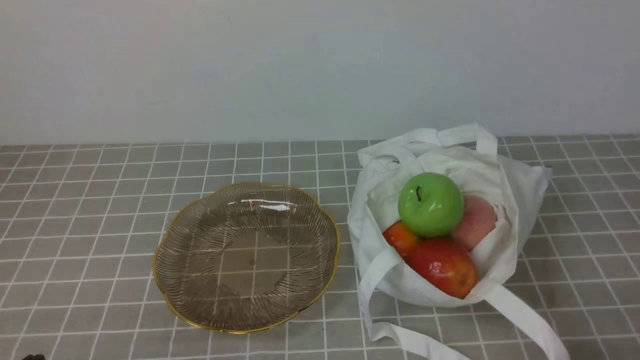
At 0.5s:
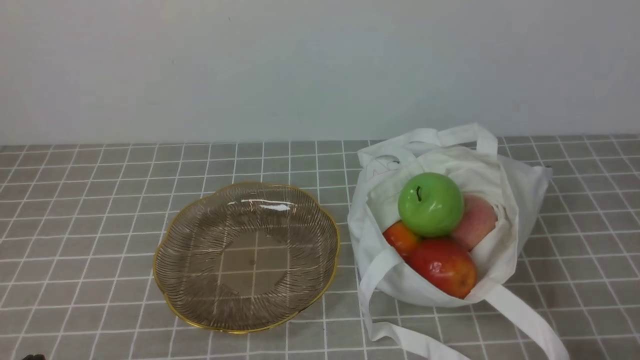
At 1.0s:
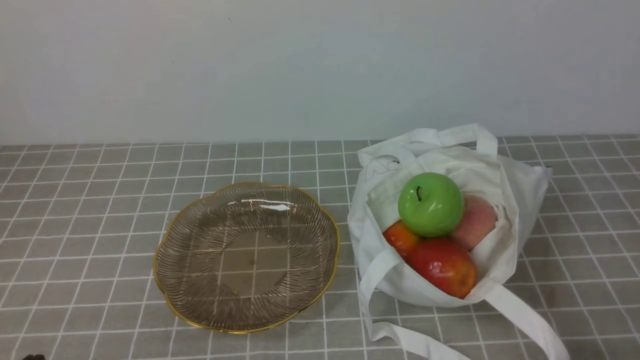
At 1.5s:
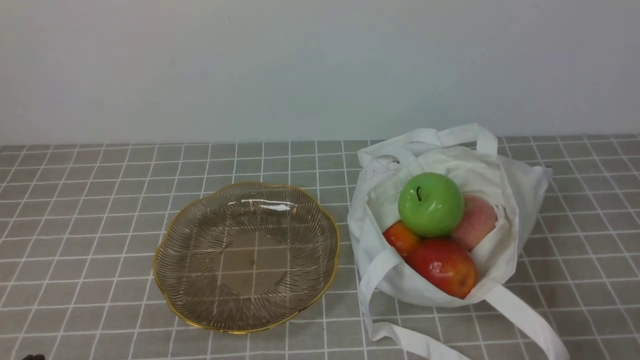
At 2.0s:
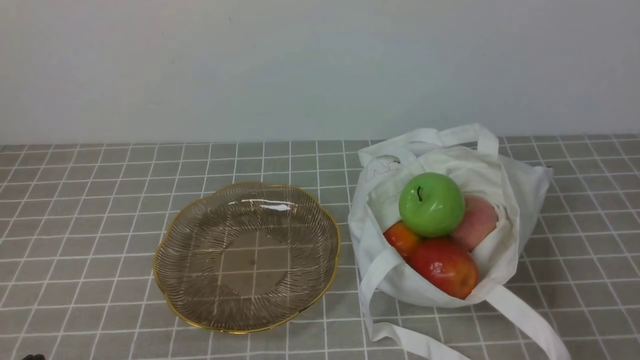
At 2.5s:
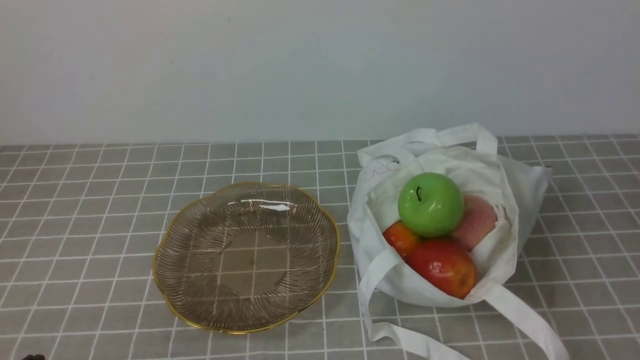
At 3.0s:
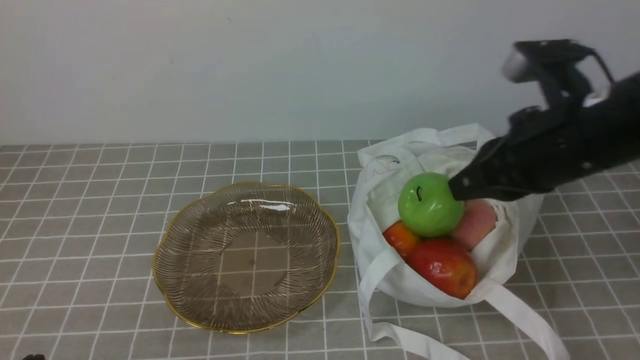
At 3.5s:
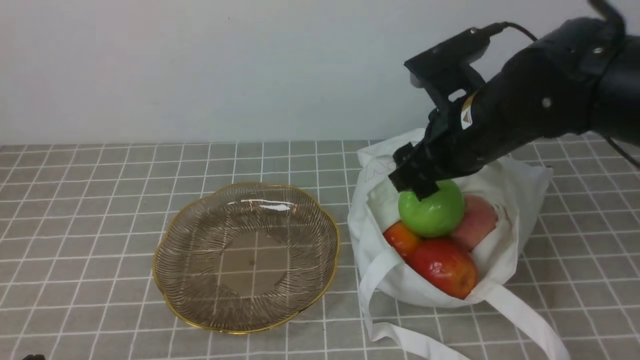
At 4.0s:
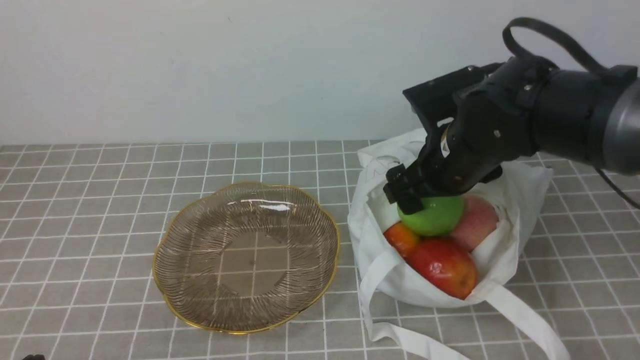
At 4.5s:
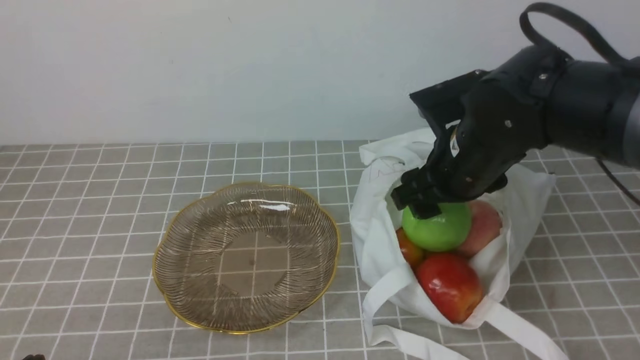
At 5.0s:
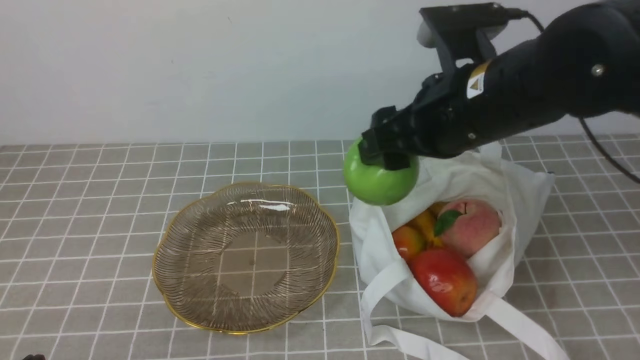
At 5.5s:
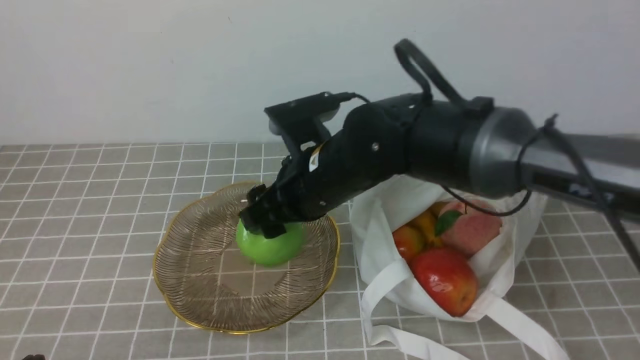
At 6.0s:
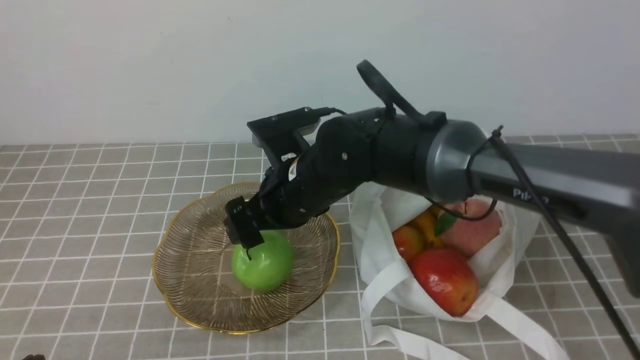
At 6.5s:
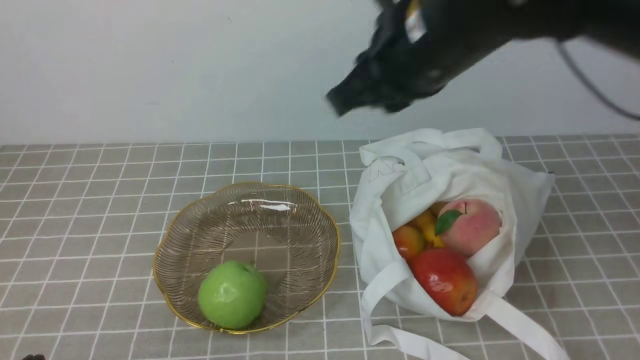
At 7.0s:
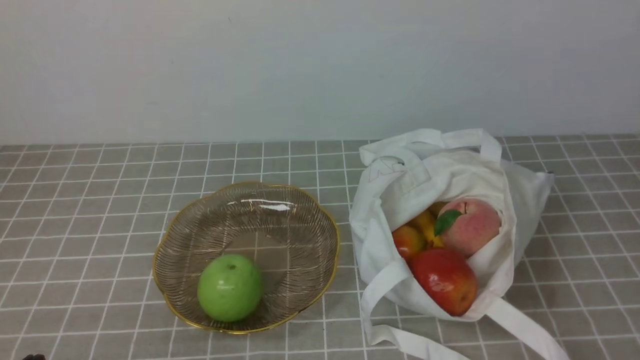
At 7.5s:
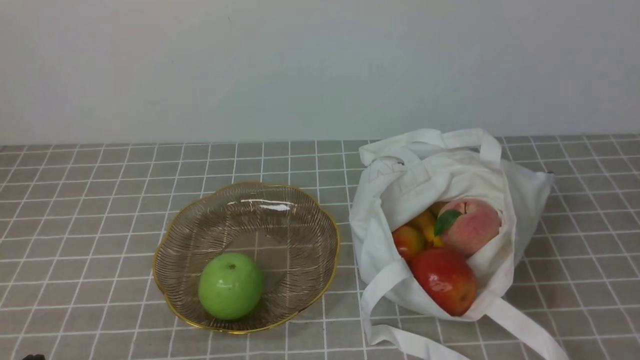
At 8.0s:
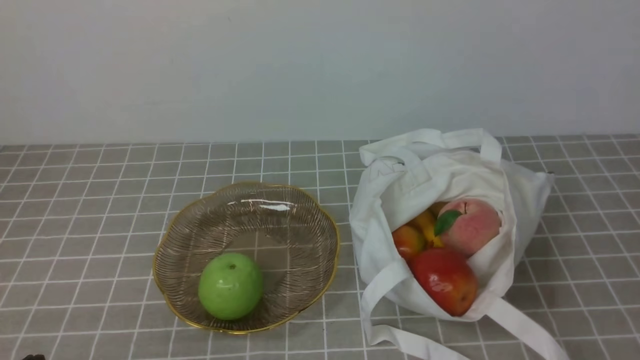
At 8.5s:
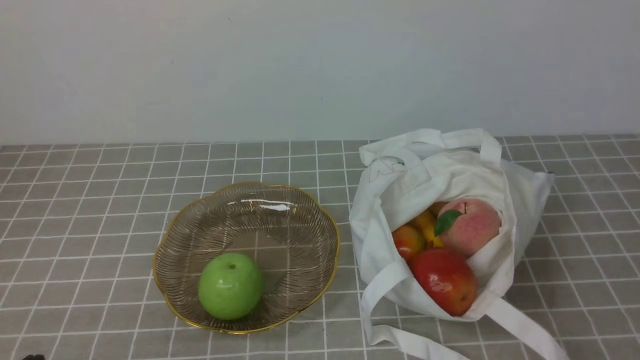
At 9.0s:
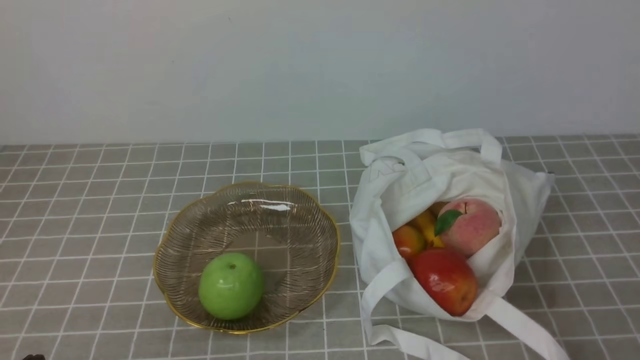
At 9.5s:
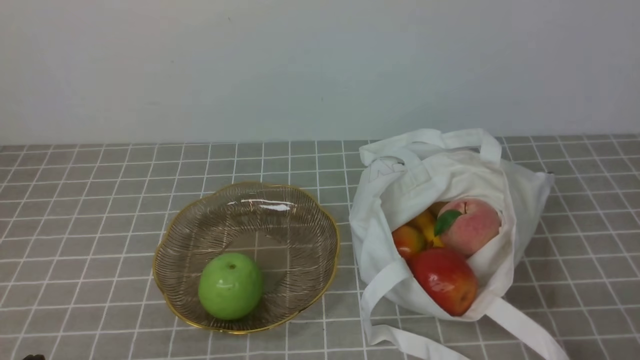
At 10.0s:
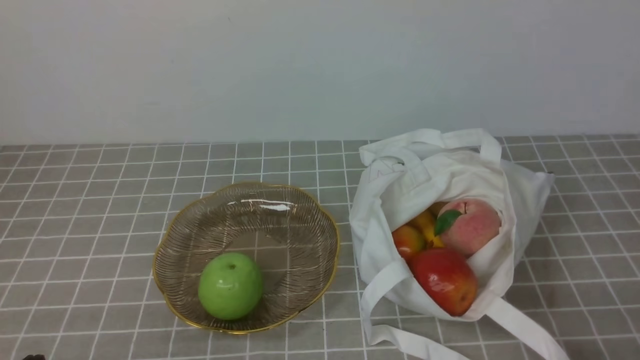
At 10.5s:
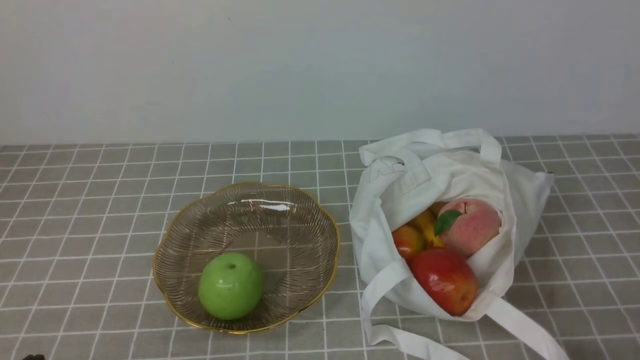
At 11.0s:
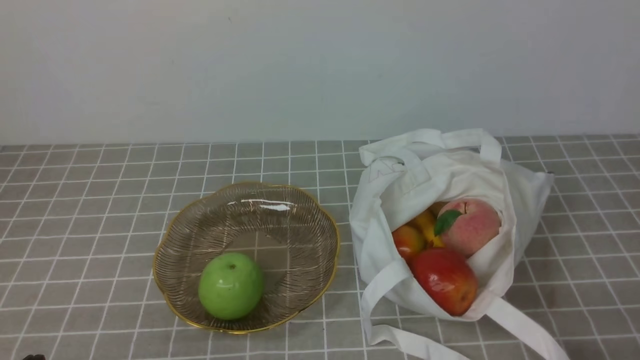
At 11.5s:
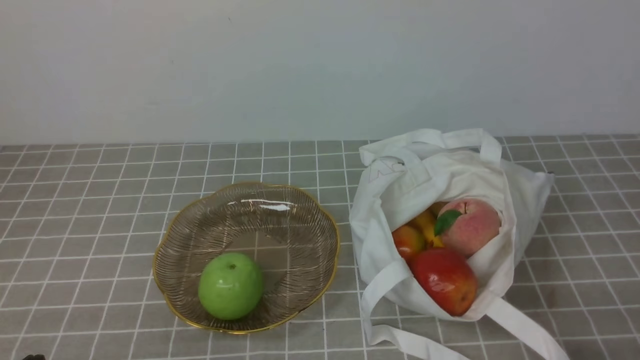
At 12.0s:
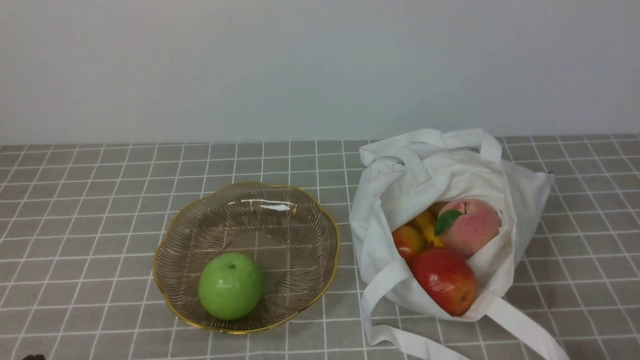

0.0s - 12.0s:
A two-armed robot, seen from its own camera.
Step, 0.0s - 4.0s: use the right arm to grab an apple from the bag.
Step, 4.5s - 5.5s: use the right arm to put the apple into the empty plate on the left.
2.0s - 4.0s: The right gripper moves forward and to the left, some 35 cm, and opens up.
4.0s - 6.0s: The right gripper is displaced to the left by some 15 cm.
6.0s - 8.0s: The right gripper moves backward and to the right, roughly 40 cm, and closes.
10.0s - 12.0s: The two grippers keep their place.

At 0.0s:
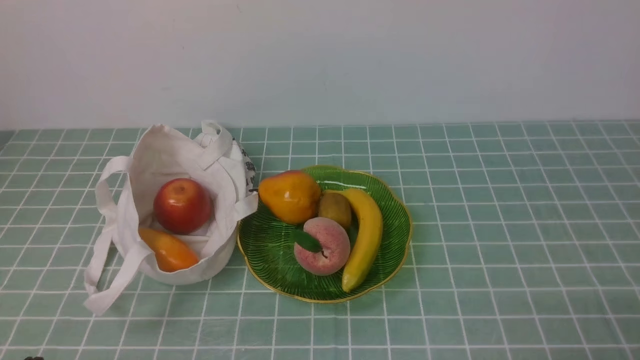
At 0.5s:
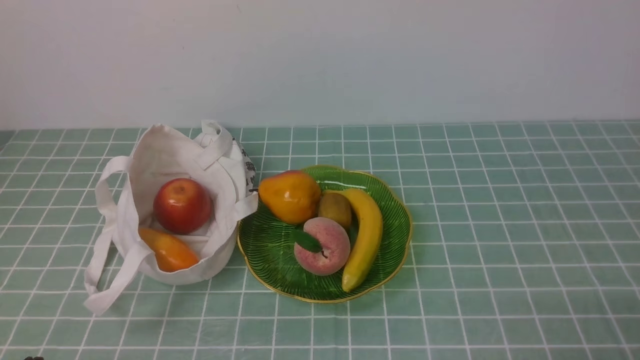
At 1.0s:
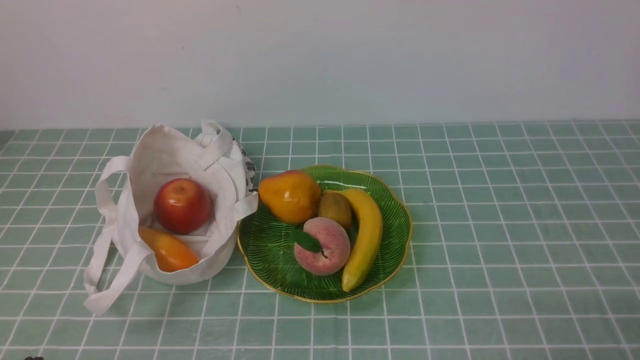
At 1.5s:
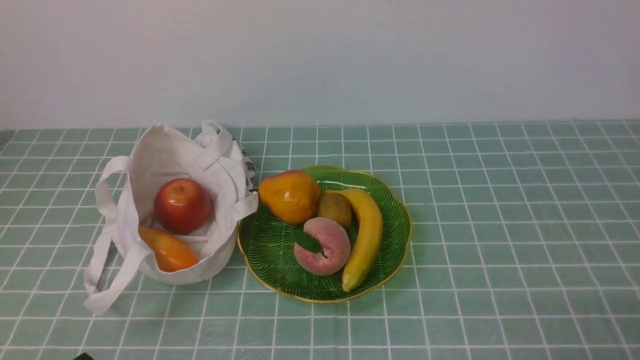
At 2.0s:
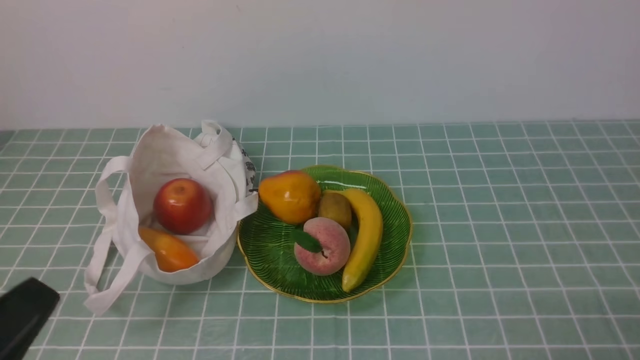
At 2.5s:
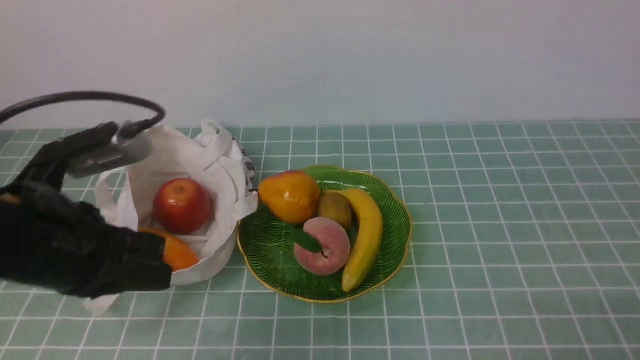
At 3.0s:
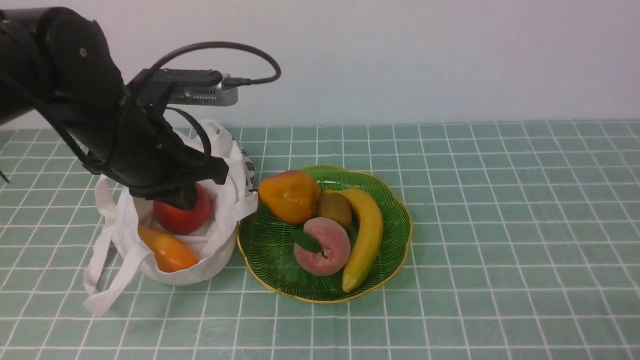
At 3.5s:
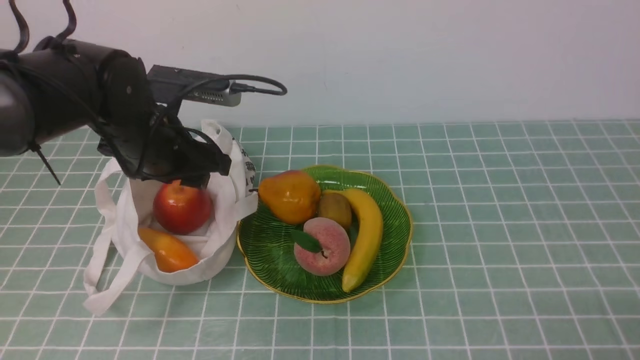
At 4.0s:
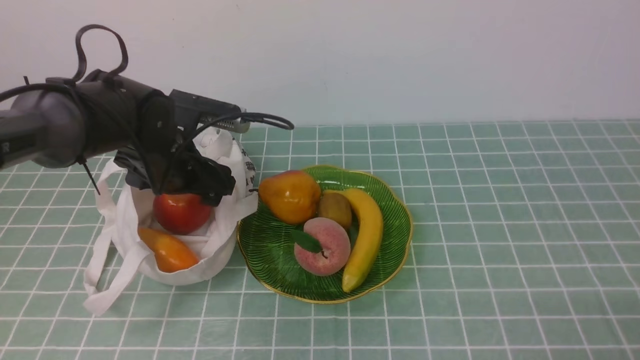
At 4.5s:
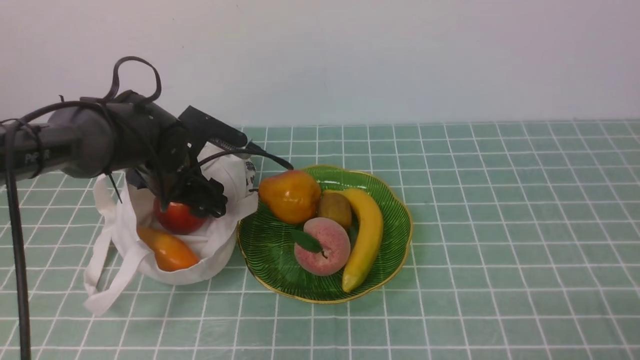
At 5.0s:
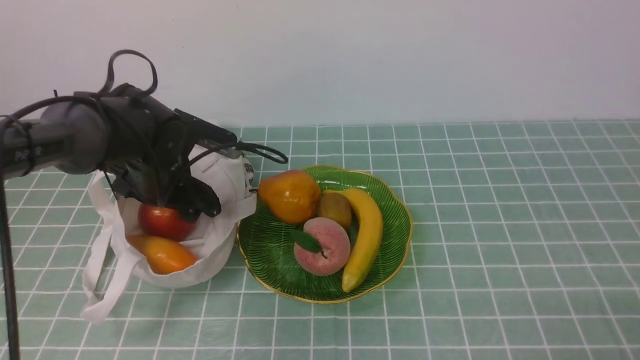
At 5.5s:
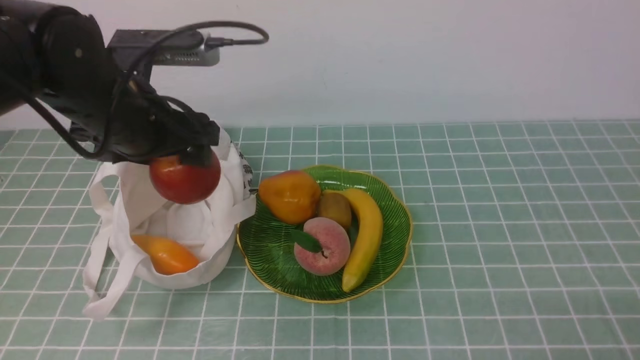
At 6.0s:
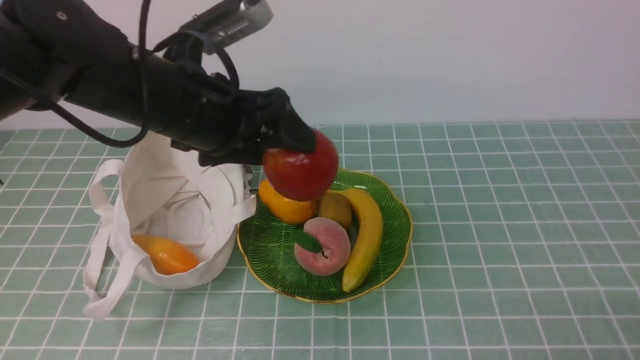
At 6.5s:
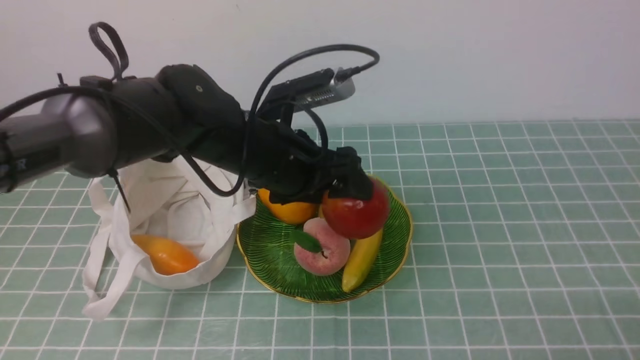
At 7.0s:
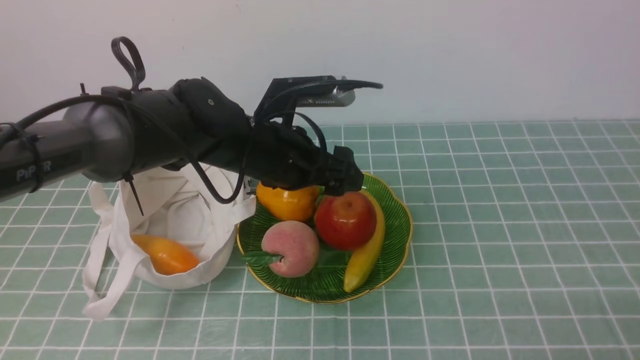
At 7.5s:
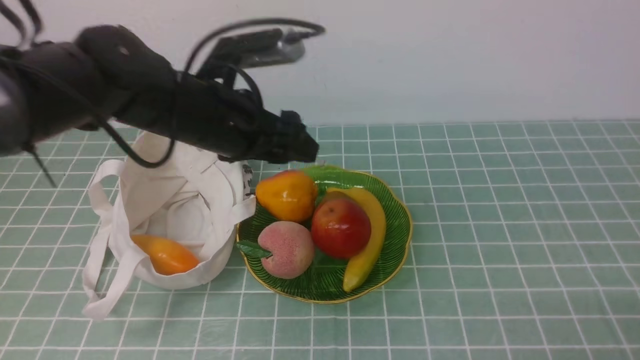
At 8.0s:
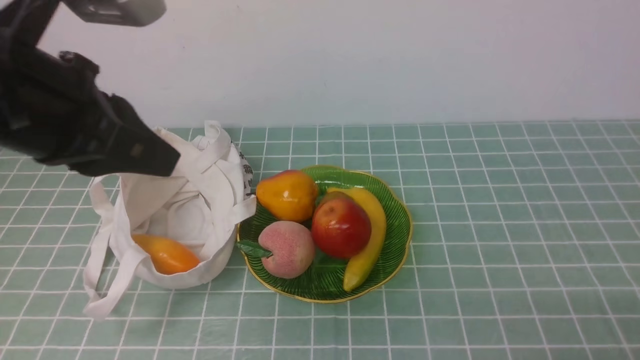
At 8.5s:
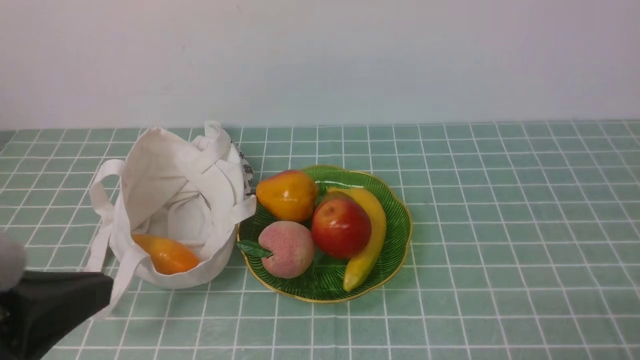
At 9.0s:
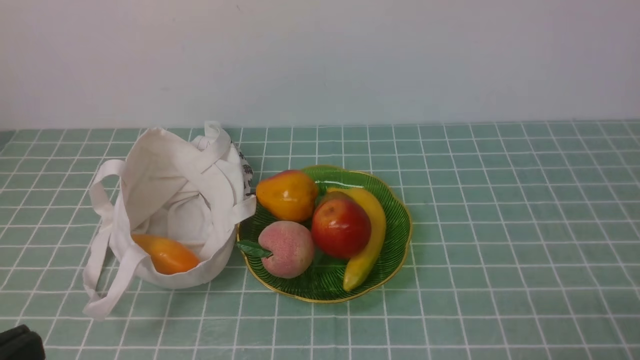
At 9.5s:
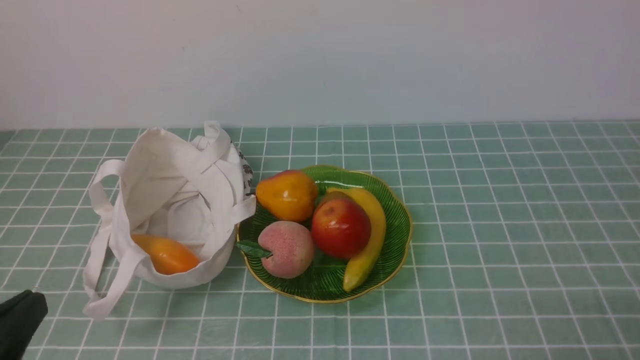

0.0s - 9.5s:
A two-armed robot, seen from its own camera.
Step, 0.0s - 5.0s: use the left arm to grab an apple from the bag.
Step, 5.5s - 7.0s: use the left arm to put the apple into the empty plate on the right.
2.0s - 4.0s: The left gripper shifts approximately 35 cm forward, and opens.
4.0s - 5.5s: The left gripper is displaced upward by roughly 5 cm.
5.5s - 7.5s: The left gripper moves to the right, about 5 cm.
7.5s - 9.5s: The left gripper goes approximately 35 cm backward and to the left, and closes.
